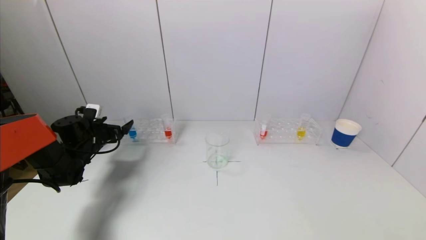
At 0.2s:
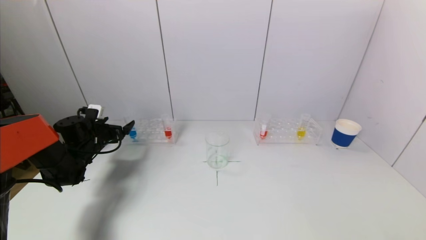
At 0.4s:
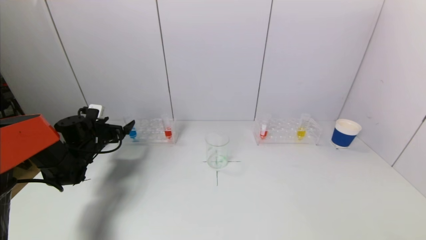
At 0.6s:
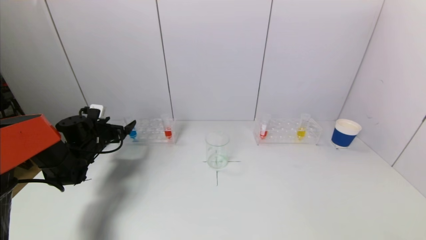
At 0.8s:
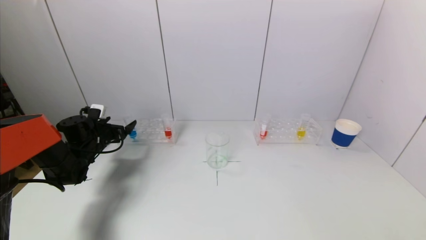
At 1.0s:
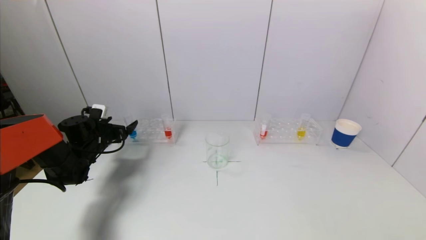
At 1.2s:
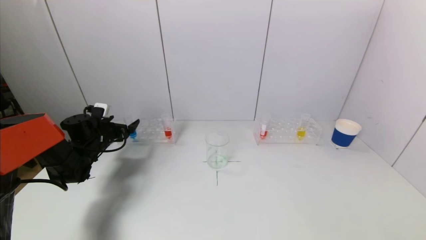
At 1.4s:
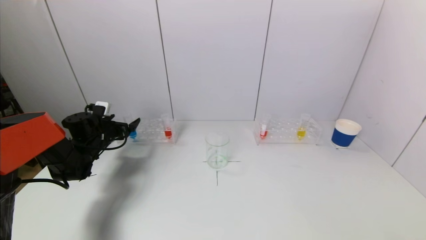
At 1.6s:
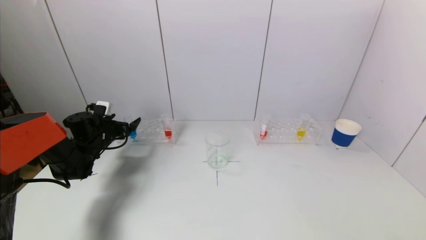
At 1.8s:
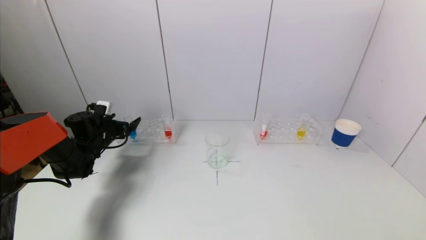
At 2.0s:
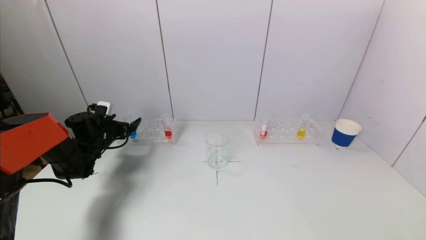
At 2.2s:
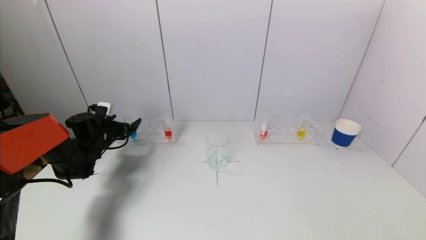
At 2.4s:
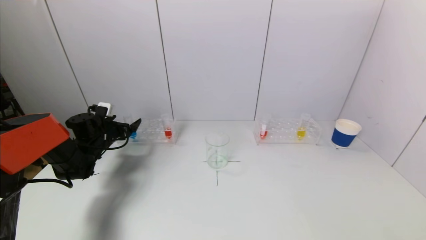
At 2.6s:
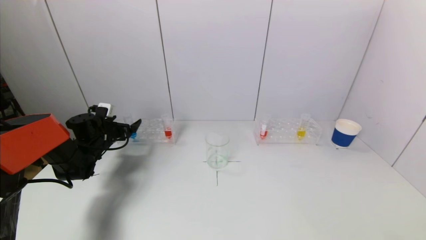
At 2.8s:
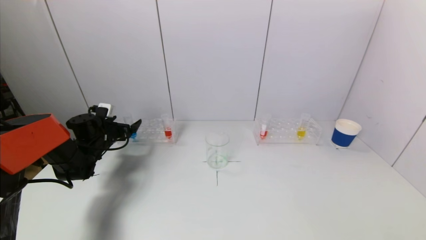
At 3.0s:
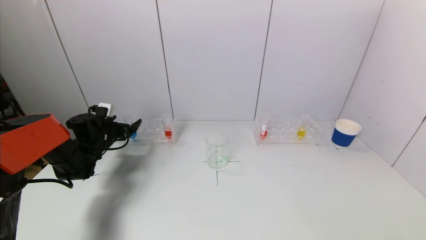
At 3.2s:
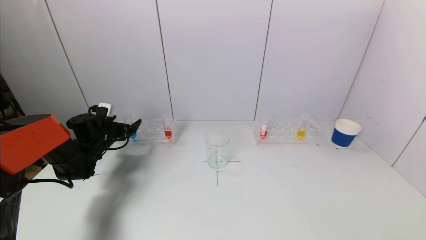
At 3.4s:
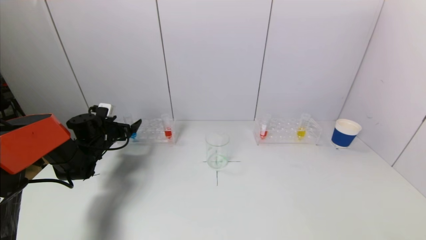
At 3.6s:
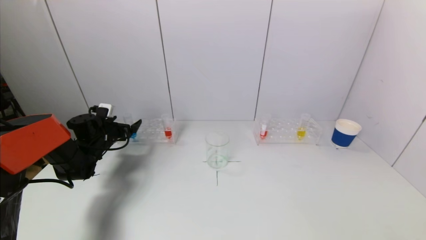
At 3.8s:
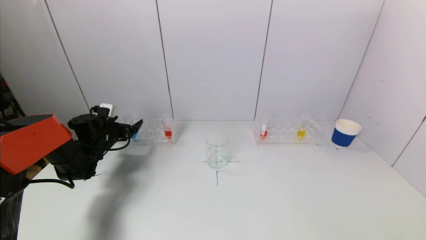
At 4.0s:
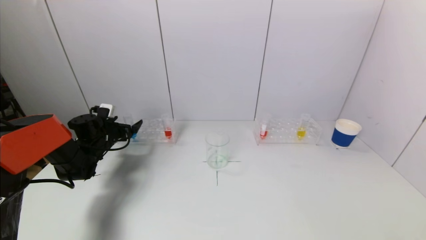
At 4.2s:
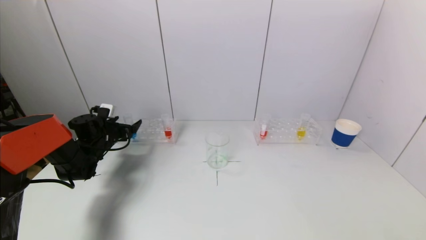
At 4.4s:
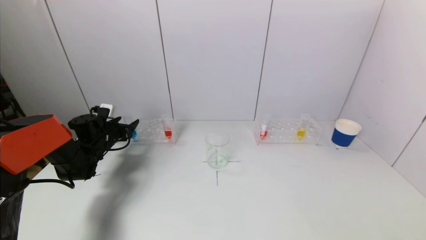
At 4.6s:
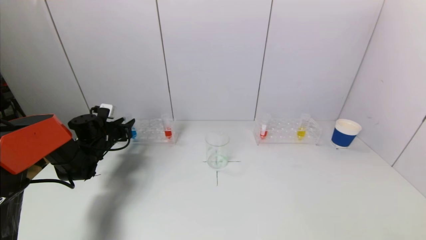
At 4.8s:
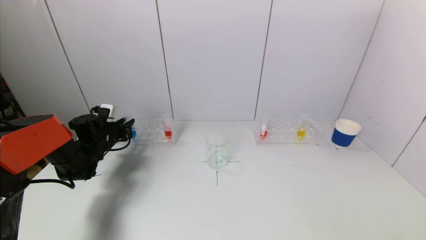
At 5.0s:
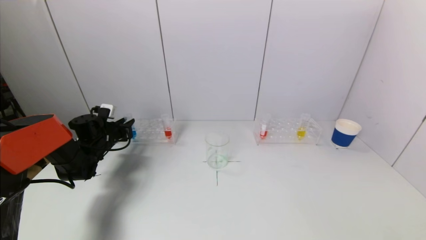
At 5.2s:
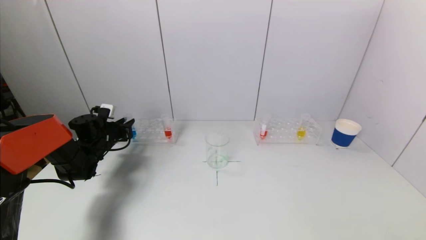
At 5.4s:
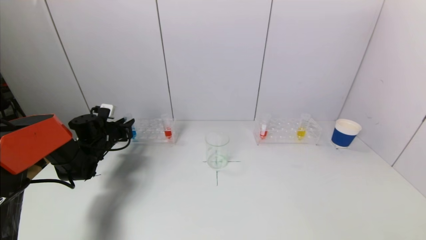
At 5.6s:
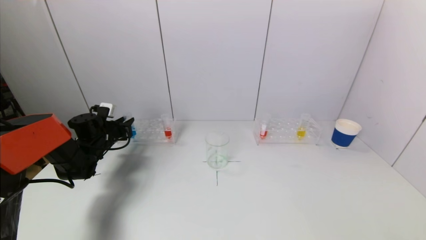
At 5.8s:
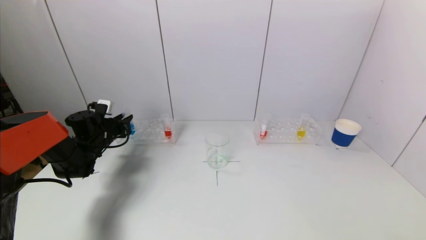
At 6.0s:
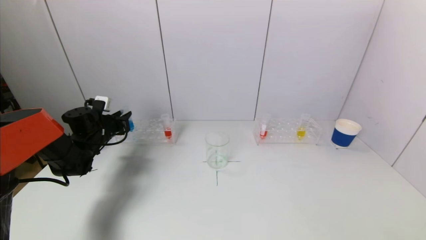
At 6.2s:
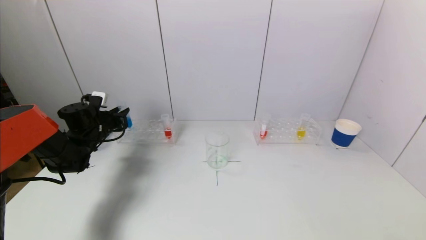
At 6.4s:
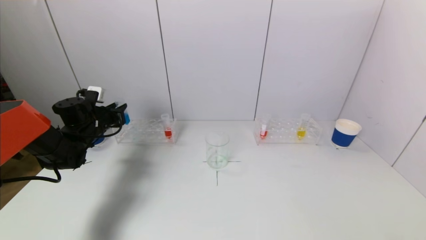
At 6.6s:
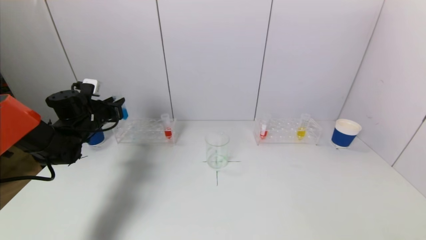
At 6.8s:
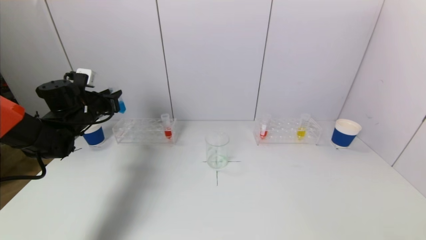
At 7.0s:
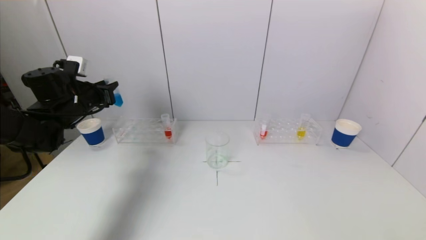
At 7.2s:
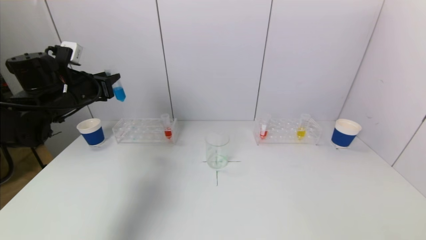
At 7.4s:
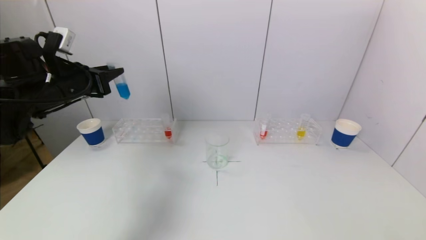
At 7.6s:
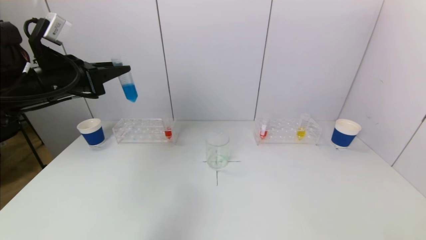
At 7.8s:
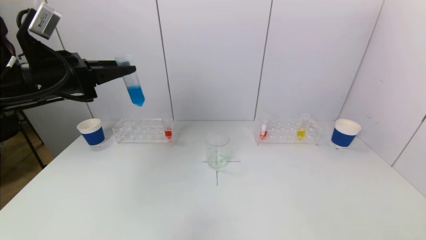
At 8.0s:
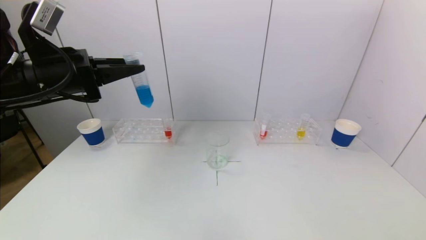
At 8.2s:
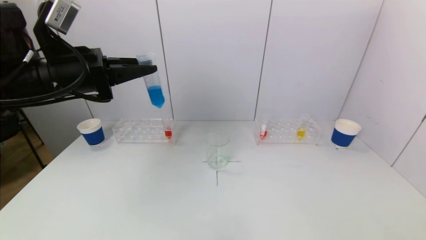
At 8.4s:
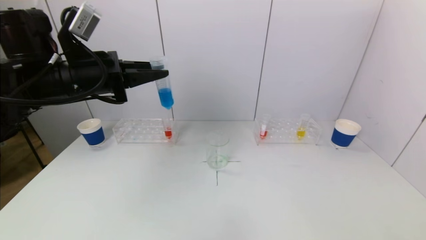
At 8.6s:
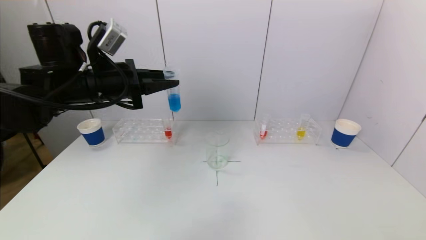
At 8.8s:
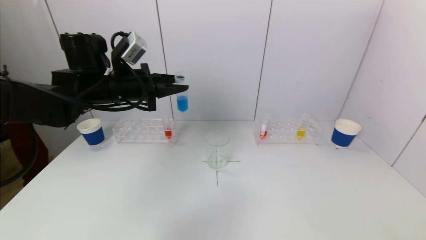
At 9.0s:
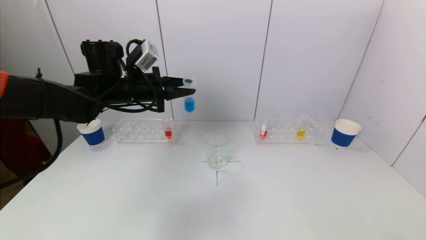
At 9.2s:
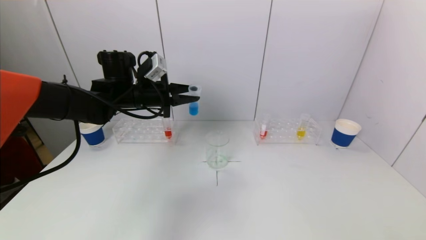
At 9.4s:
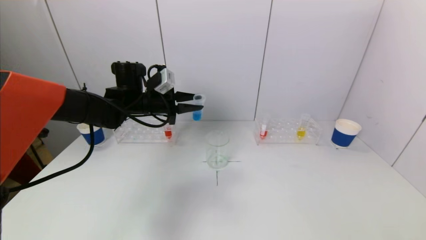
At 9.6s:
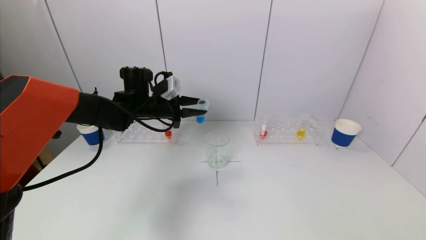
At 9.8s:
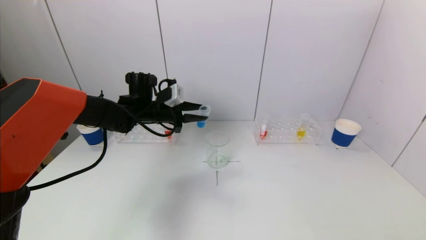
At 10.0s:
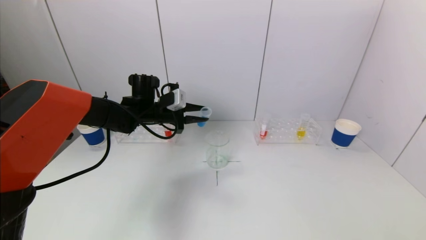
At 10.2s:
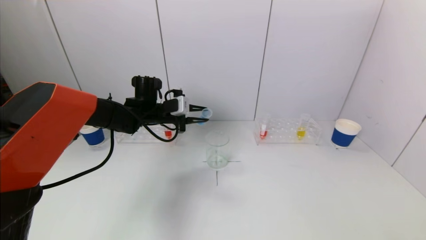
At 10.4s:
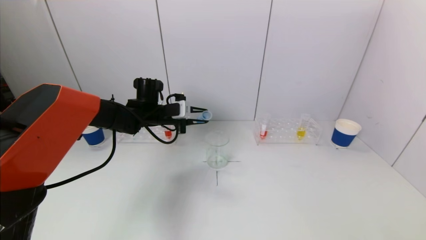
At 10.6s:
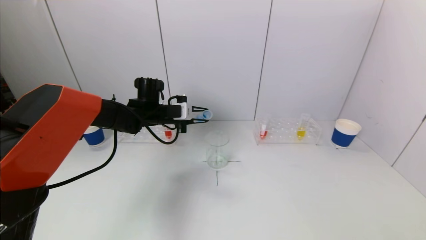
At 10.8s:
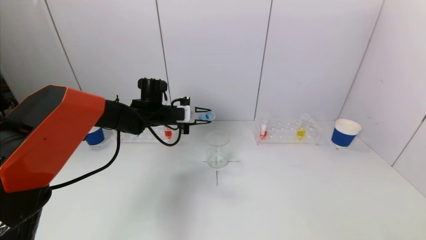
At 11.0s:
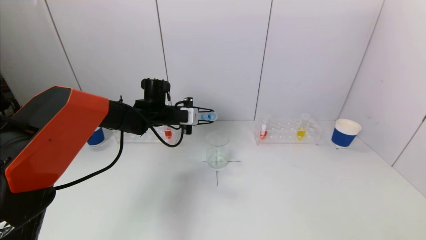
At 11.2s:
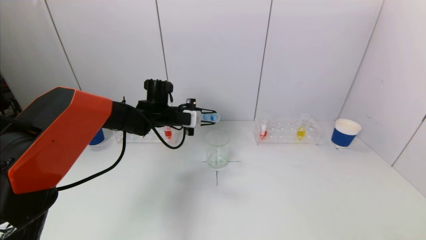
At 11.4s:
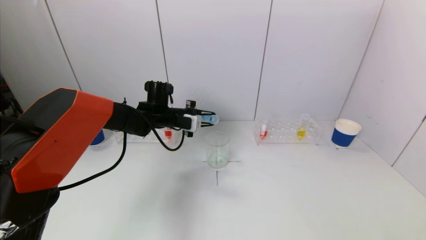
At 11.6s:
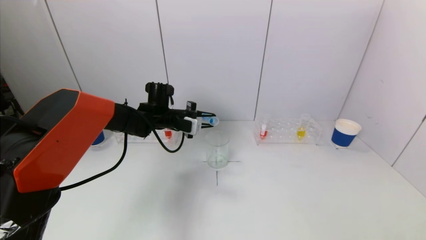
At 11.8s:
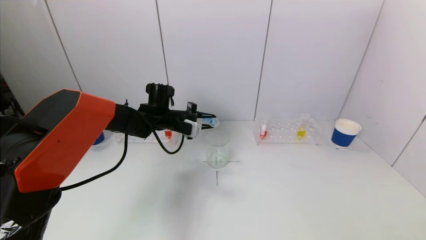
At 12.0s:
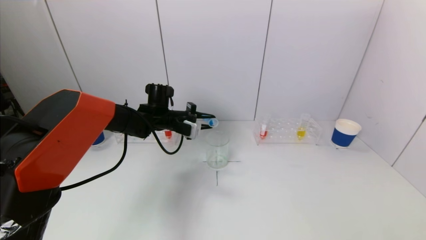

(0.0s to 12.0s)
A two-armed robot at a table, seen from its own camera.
Task of the whole recording: pick up a test tube with pigment on left test tube rack and a test tube with pigment on right test tube rack by grippers and pour them into the beaker.
Step, 0.0s - 5.2s: Grasp the blue reagent with the left gripper.
0.0s - 1.6s: The grippers move only a little.
1.6s - 3.0s: Both grippers stay put.
3.0s - 4.4s: The left gripper closes up.
4.4s - 6.0s: The left gripper closes up.
6.0s - 7.6s: The left gripper heads upward and backward, covering about 25 cm.
7.6s - 9.0s: The left gripper goes about 15 cm to the right and forward.
9.0s - 10.4s: The left gripper moves downward and forward, about 10 cm.

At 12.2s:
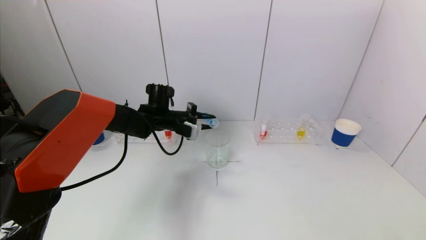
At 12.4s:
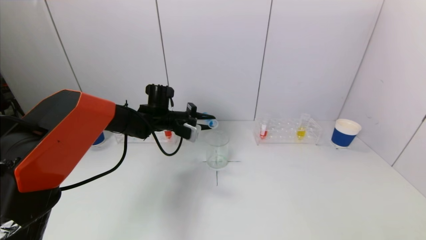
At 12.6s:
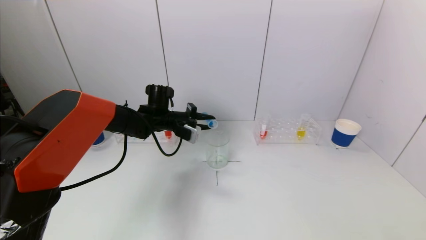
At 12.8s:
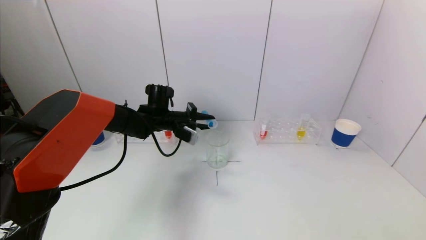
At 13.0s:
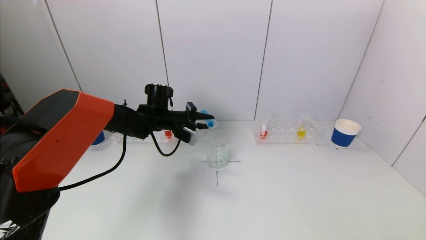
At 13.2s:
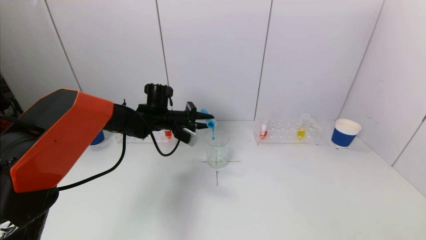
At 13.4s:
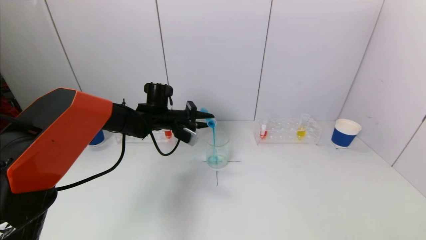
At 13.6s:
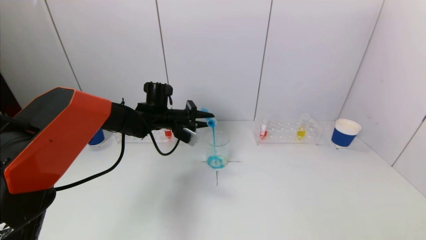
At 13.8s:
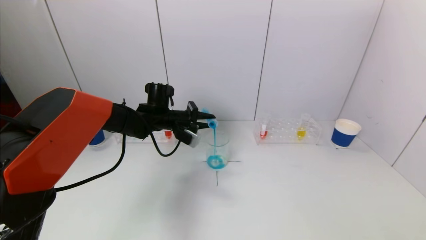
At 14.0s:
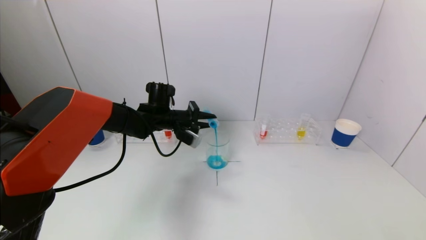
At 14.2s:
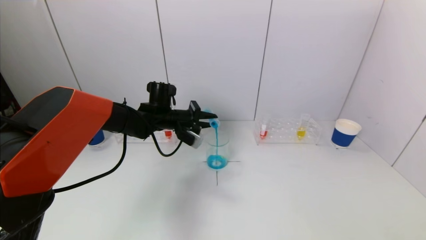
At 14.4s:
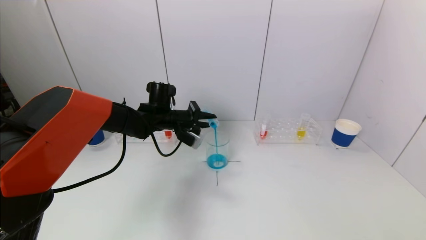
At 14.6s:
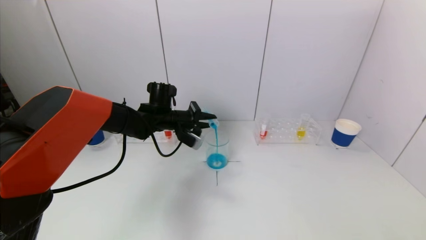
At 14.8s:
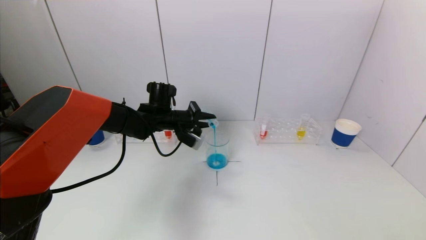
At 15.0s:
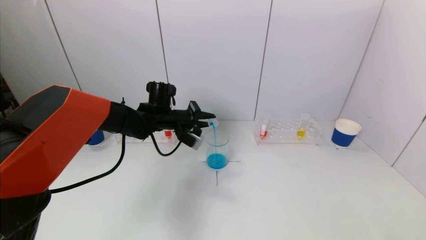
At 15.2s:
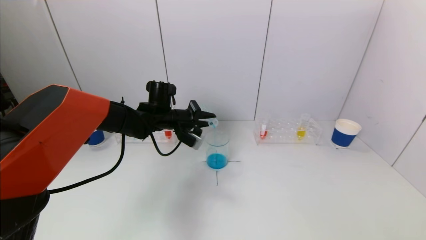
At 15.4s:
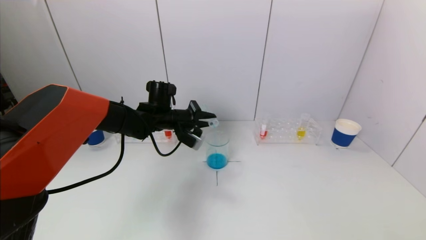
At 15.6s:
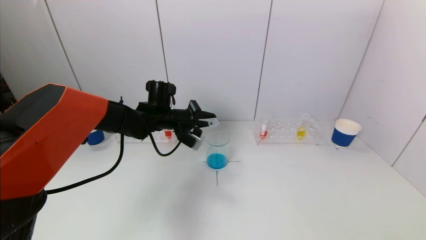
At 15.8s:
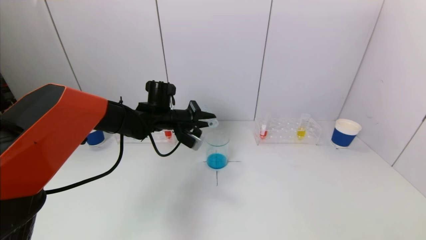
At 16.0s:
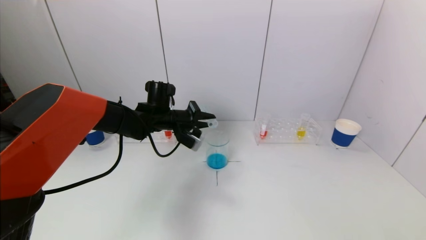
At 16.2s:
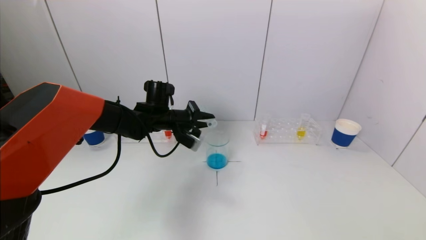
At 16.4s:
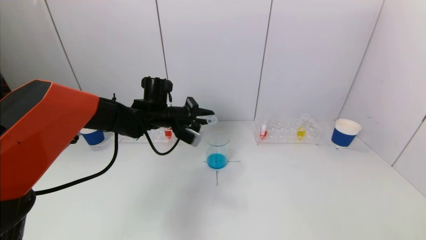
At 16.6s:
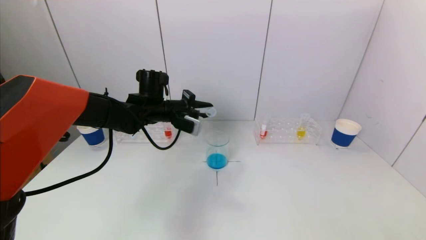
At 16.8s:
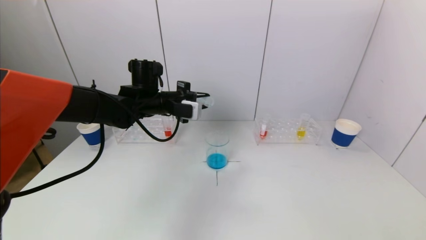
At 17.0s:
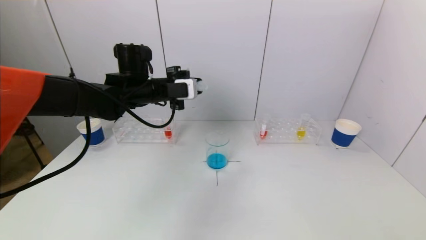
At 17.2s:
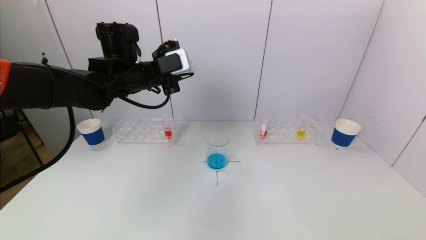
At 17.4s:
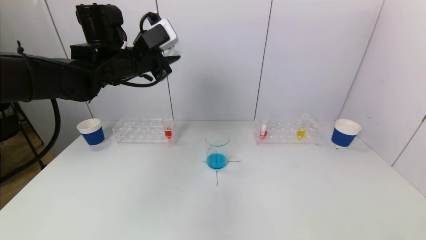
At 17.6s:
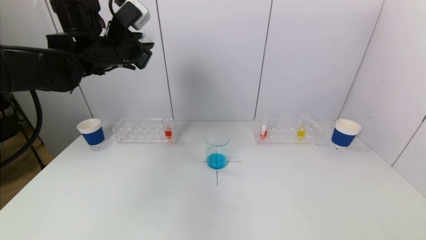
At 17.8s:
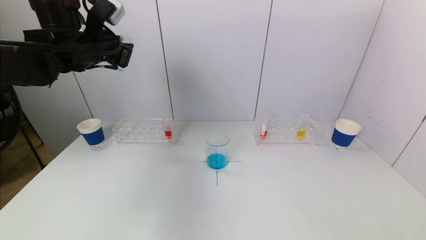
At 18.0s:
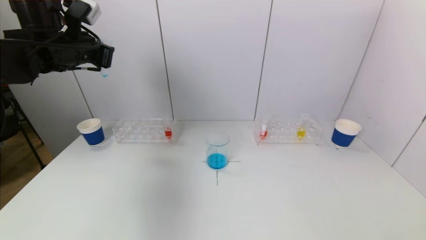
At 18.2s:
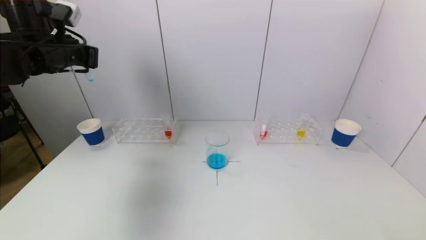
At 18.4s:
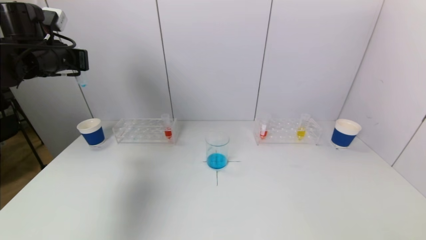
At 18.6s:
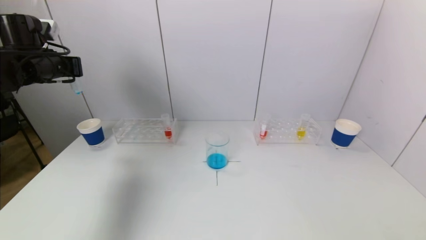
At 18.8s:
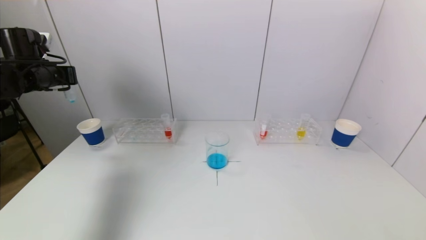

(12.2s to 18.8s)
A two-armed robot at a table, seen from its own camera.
Task of the whole recording: pick up a test tube with pigment on left test tube rack and a test tube with pigment on right test tube rack by grippers and pour them into the beaker.
Step, 12.2s - 16.4s: Pour the blue reagent into the graduated cylinder with the left gripper.
12.2s - 13.8s: The grippers stay close to where they were, moving slightly.
13.8s - 15.4s: The grippers move only a little.
15.4s - 17.2s: The left gripper heads upward, covering about 15 cm.
17.2s - 18.8s: The left gripper travels to the left by about 25 cm.
